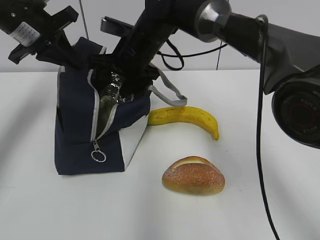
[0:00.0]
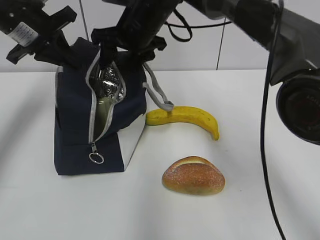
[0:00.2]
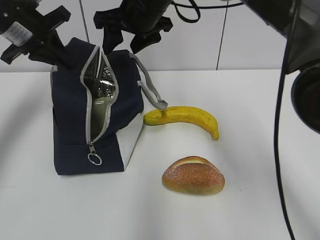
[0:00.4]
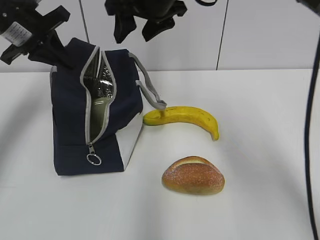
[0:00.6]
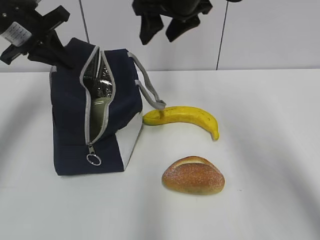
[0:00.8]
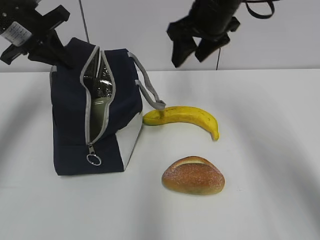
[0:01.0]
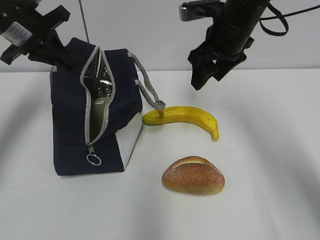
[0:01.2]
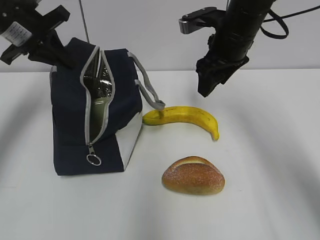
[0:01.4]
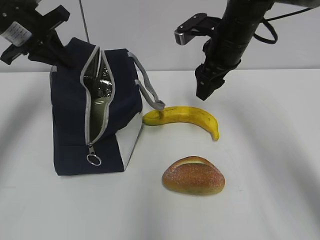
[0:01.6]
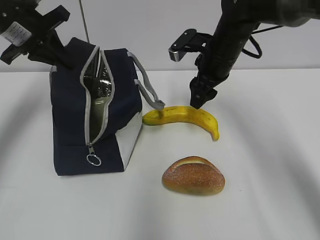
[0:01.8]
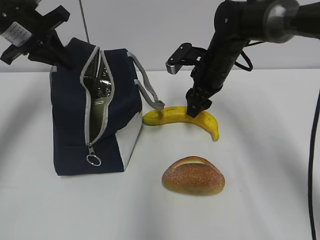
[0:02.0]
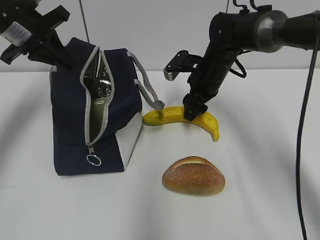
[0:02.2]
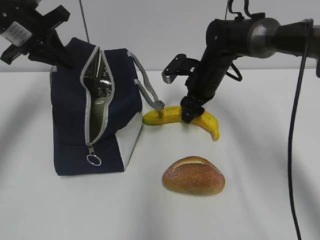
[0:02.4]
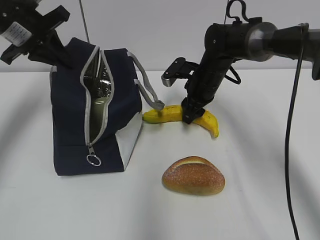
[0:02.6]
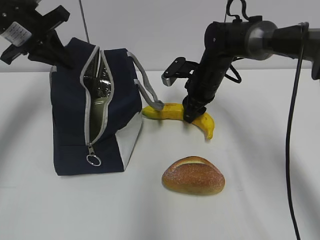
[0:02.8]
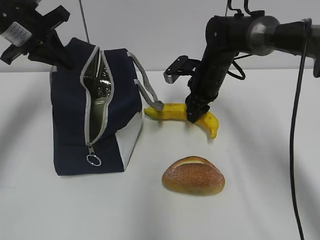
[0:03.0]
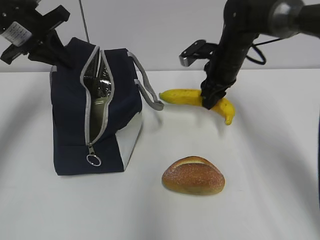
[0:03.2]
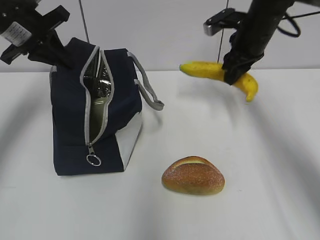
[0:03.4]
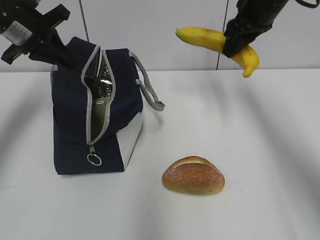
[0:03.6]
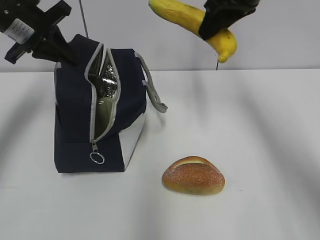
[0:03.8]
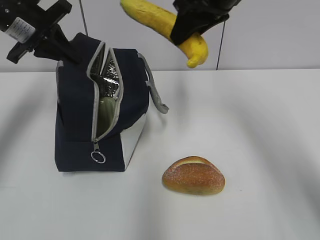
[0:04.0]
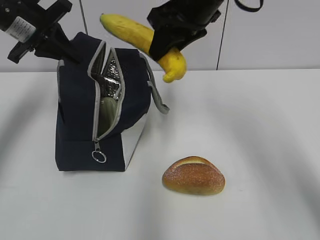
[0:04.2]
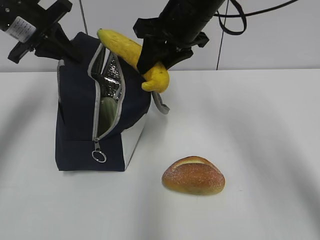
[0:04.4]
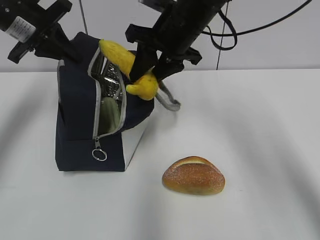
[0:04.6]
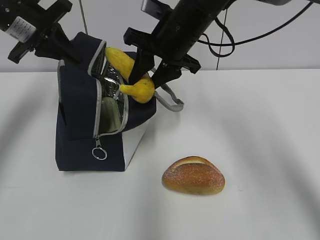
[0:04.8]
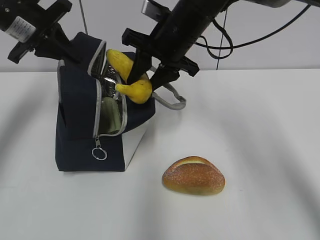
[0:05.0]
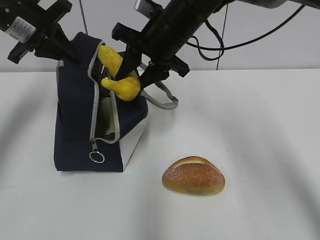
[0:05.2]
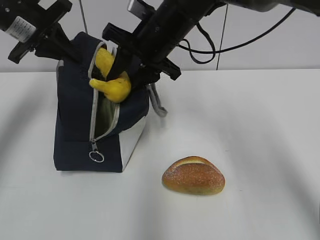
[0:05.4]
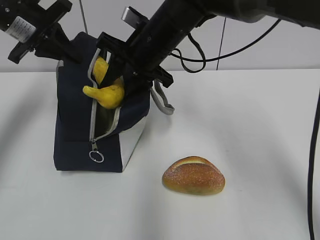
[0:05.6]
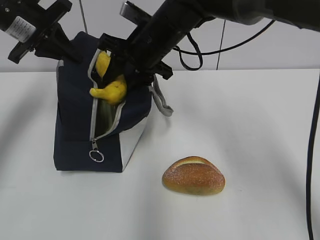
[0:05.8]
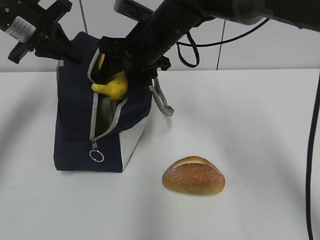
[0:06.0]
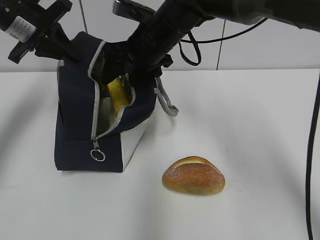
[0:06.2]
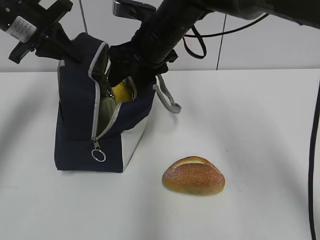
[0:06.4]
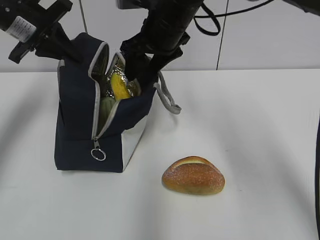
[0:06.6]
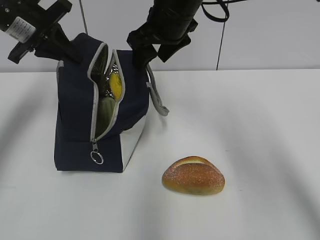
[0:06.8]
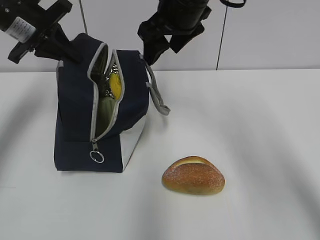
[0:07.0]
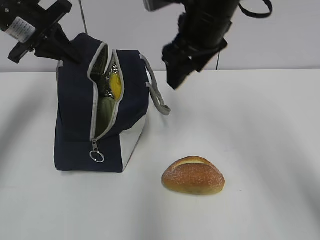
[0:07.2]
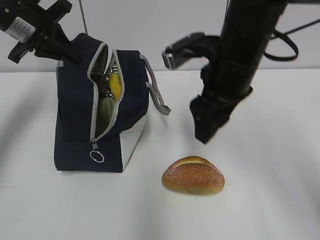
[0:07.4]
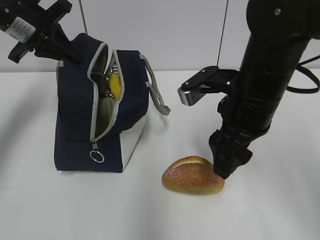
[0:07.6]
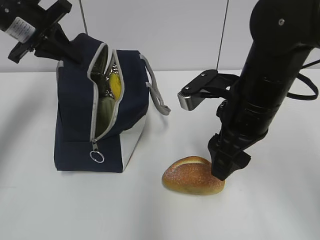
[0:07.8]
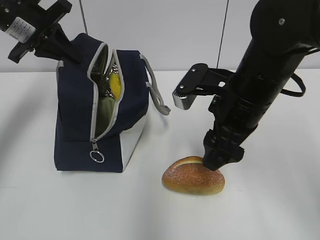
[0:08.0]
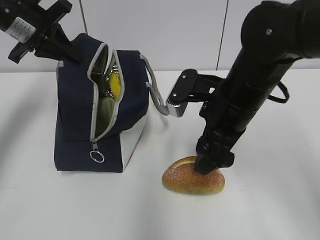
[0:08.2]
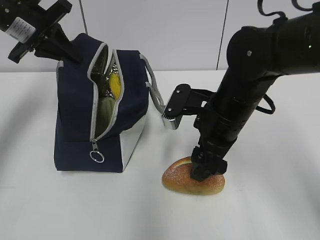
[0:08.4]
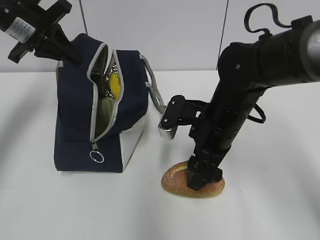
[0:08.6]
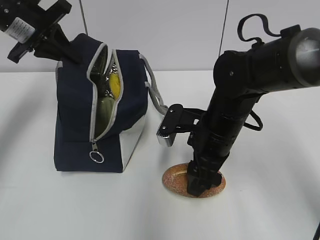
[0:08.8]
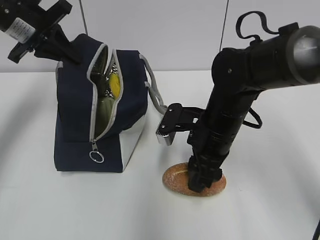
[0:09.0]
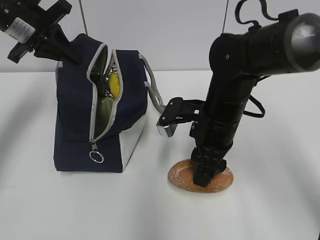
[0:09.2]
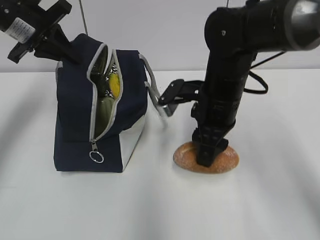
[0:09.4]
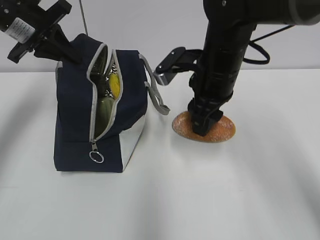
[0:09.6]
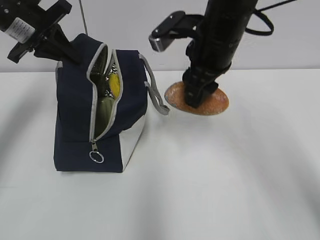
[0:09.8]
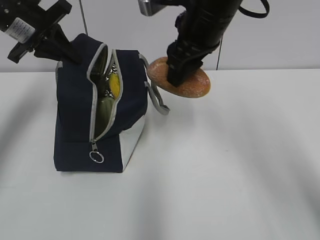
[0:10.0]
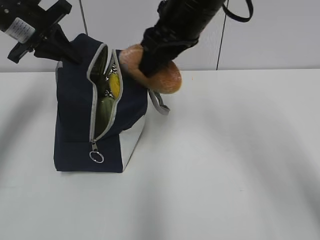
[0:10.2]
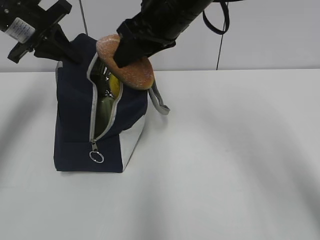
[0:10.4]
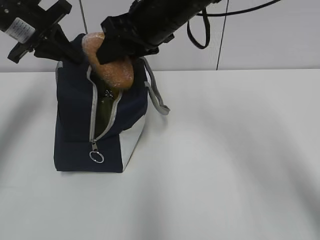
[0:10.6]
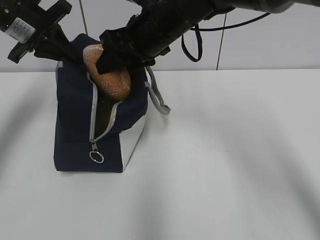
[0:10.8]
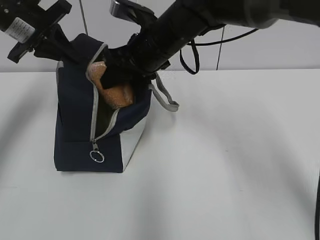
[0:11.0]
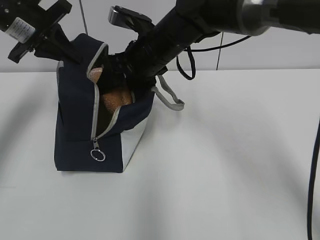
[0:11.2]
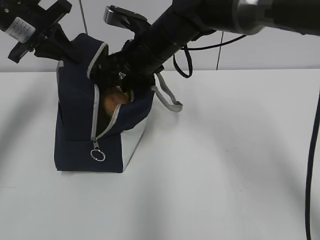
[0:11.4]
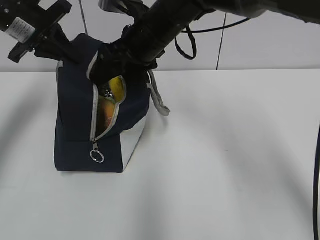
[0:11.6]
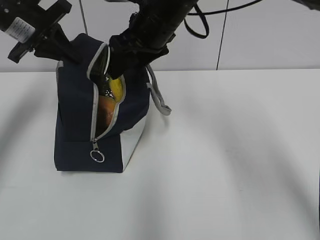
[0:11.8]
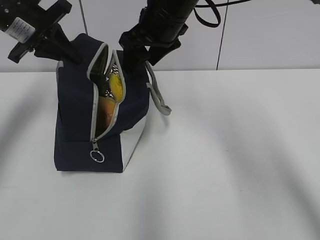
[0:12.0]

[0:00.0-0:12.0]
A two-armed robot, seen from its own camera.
Step, 0.4 to 2.4 s: Grab the banana with your right hand.
Step, 2.8 to 6.6 s: Place it into the bag with your right hand.
Step, 6.8 to 8.8 s: Grab the bread with your right hand.
Step, 9.0 to 11.8 s: Place it into the bag with your right hand.
0.0 to 1.6 s: The right gripper goes about 15 cm to the right.
1.6 to 3.0 s: The right gripper moves downward, approximately 10 cm.
3.0 to 4.4 s: The right gripper shifts roughly 20 cm upward and backward.
4.4 to 6.0 s: The right gripper shifts approximately 5 cm to the left and downward.
6.0 to 7.6 s: The right gripper moves backward and to the right, approximately 15 cm.
7.6 to 9.0 s: The right gripper travels downward by some 10 cm.
9.0 to 10.4 s: The right gripper goes approximately 15 cm upward.
10.4 to 12.0 s: The right gripper goes downward and returns, roughly 10 cm each way.

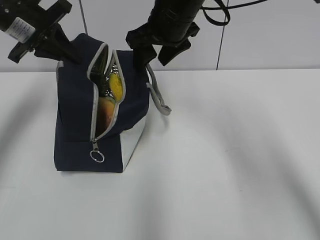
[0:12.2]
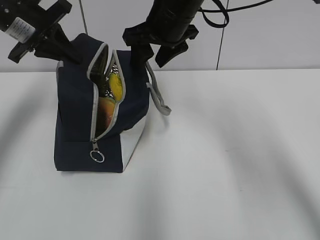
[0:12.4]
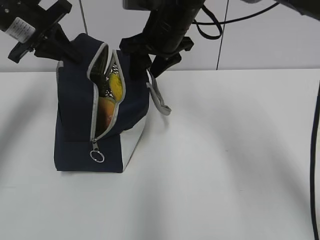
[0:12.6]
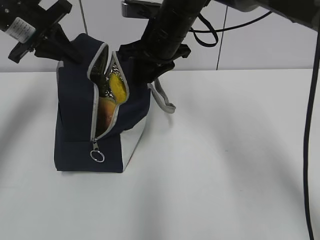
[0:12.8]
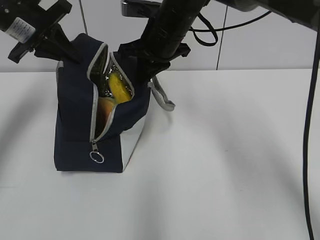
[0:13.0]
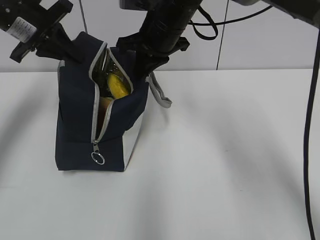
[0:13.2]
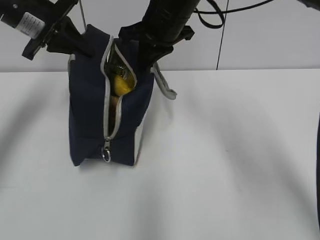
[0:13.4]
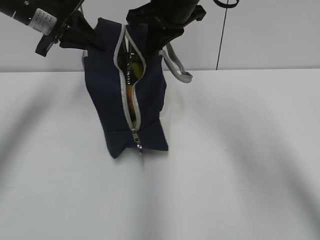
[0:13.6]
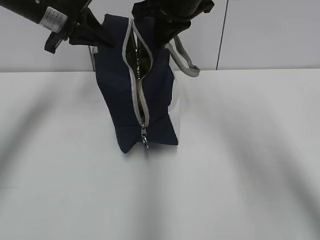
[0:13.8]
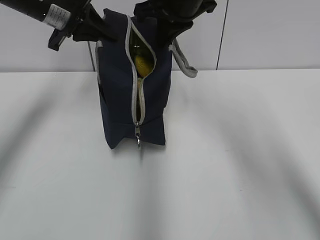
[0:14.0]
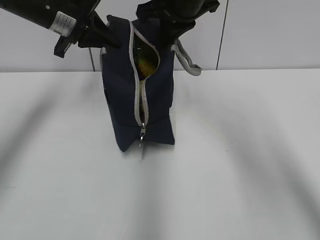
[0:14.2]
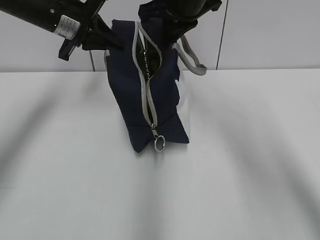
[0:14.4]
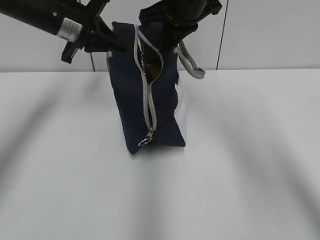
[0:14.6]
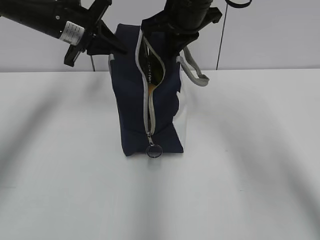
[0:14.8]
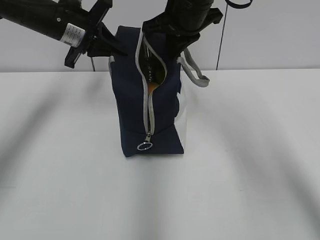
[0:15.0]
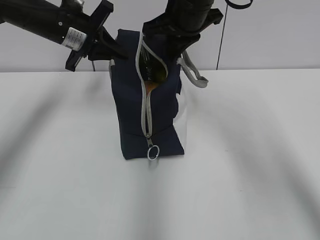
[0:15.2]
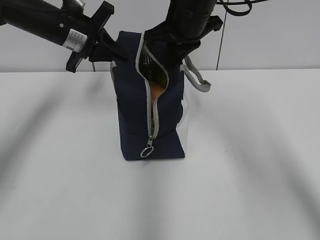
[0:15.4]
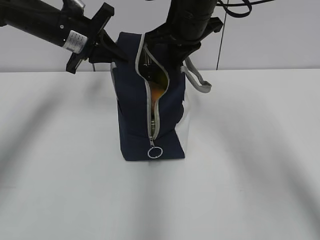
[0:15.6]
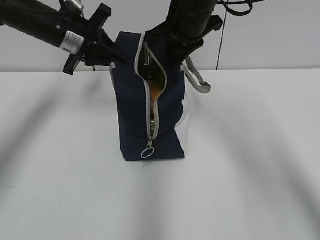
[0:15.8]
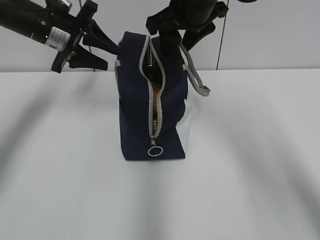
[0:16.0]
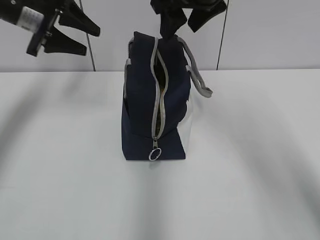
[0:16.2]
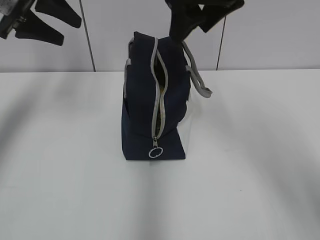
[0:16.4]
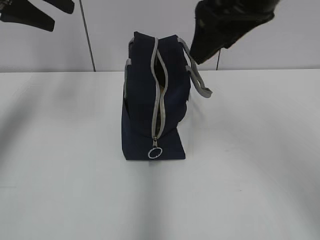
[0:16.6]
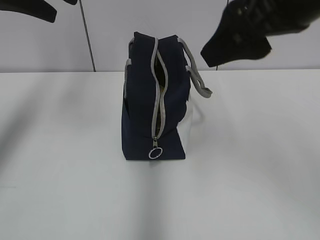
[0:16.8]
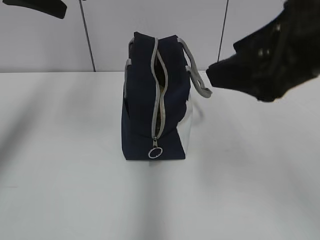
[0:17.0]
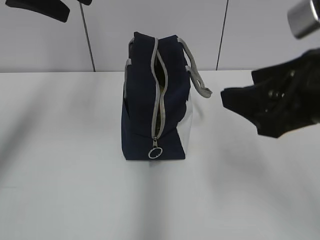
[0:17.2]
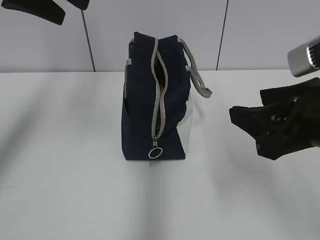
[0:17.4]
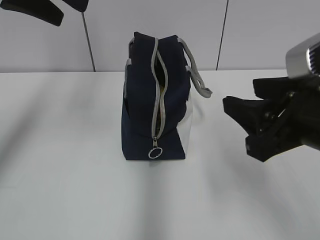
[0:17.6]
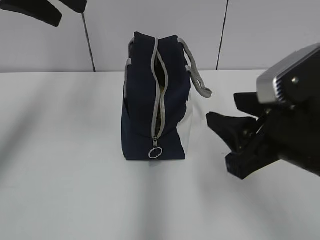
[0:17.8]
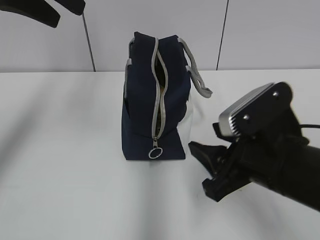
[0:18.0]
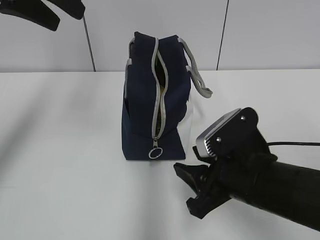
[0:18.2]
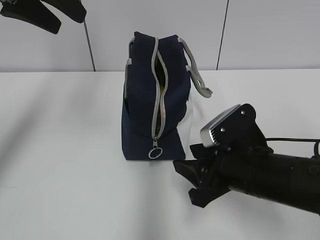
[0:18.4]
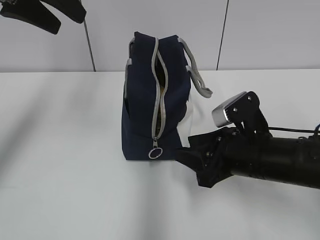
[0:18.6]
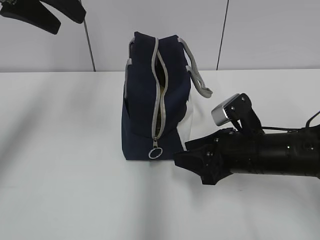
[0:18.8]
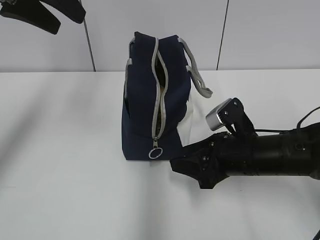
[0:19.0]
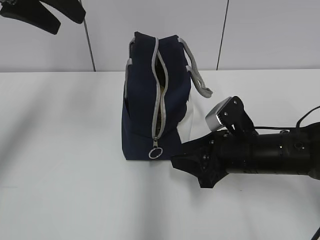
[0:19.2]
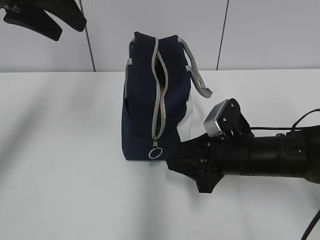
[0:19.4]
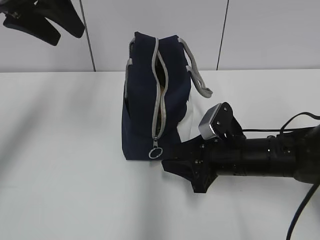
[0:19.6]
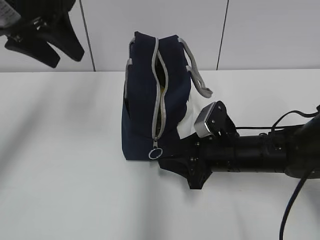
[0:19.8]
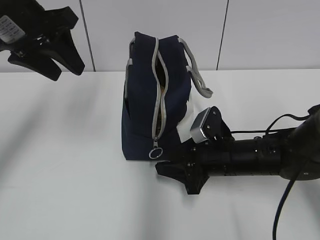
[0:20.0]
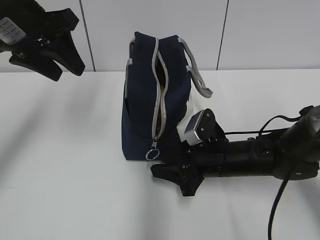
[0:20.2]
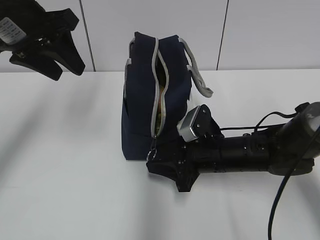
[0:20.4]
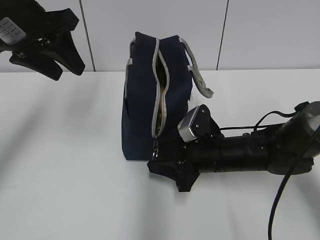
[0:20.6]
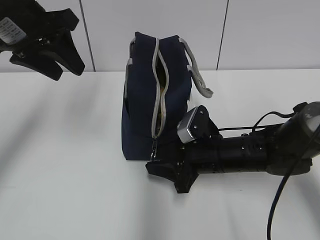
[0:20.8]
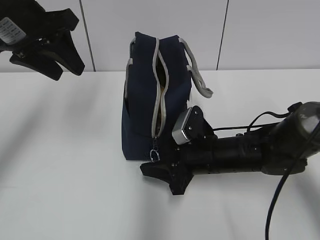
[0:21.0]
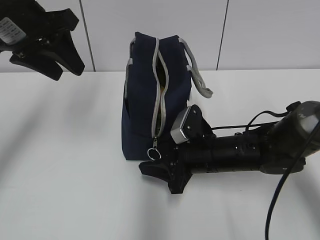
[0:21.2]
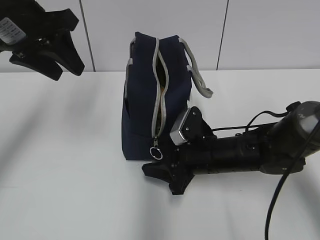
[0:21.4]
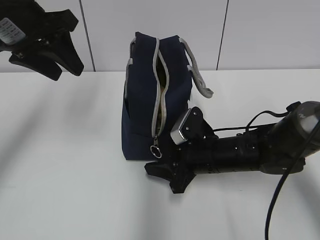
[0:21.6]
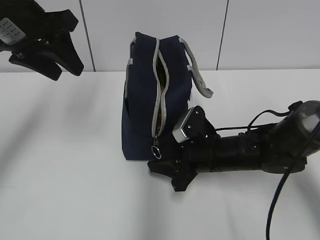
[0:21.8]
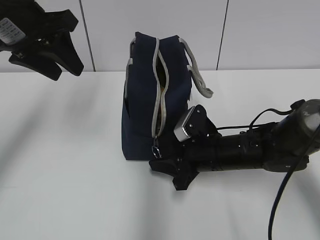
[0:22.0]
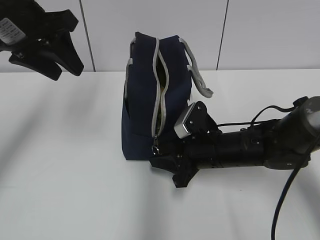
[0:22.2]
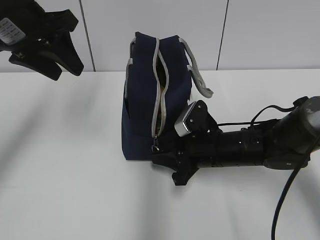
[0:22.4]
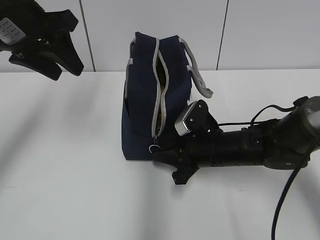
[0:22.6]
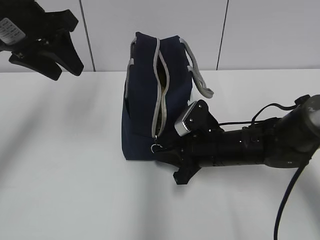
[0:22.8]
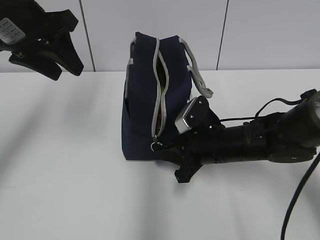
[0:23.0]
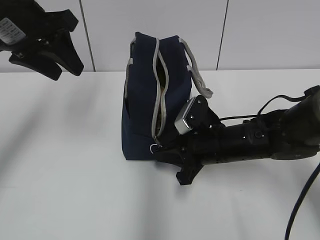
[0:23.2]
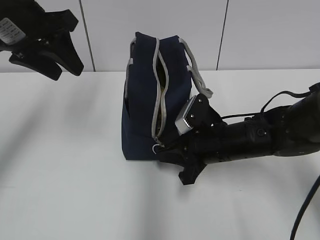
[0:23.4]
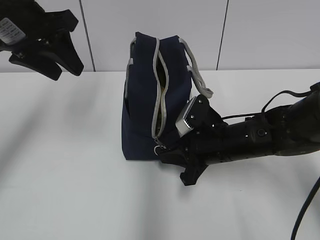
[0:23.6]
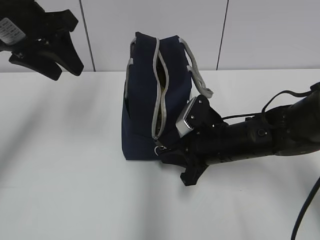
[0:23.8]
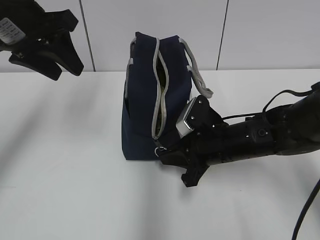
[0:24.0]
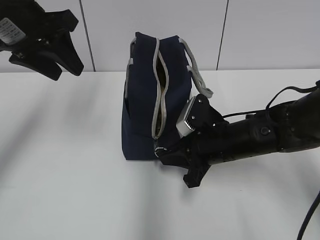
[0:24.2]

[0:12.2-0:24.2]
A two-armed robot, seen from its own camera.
Step, 12.2 to 13.0 s: Grab the lunch bag with your right hand.
Step, 13.2 to 14.4 s: Move the lunch bag to the left.
Step, 14.6 to 15.6 s: Move the lunch bag to the right.
12.2 to 13.8 s: The right gripper closes.
13.8 to 15.2 s: The left gripper moves approximately 5 cm.
15.2 to 16.6 s: The left gripper moves upward, backward and to the left, about 15 cm, and opens its fingers. The right gripper shifts roughly 15 cm backward and upward, and opens.
16.6 to 18.2 s: The right gripper is displaced downward and backward by approximately 25 cm. Meanwhile the left gripper ends up some 5 cm from where it was.
18.2 to 19.8 s: The right gripper heads forward and downward, covering approximately 10 cm.
19.8 to 21.2 s: There are only small adjustments of the grippers.
21.2 to 22.6 s: The right gripper closes its fingers.
22.6 to 24.2 s: The grippers make only small movements.
